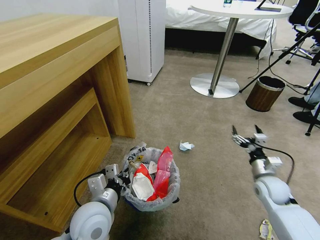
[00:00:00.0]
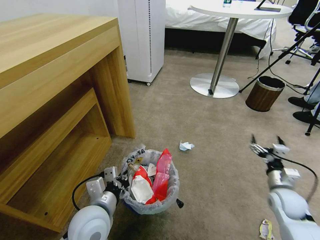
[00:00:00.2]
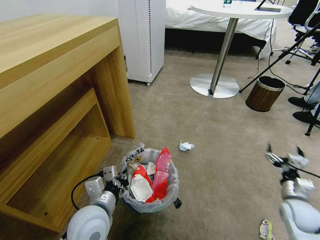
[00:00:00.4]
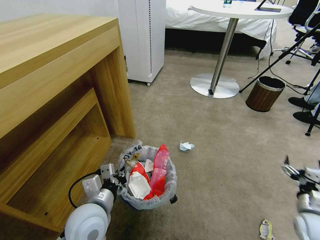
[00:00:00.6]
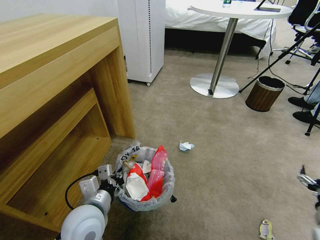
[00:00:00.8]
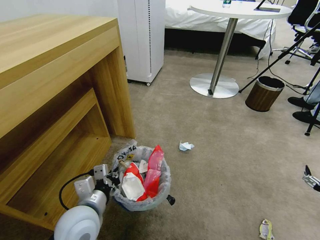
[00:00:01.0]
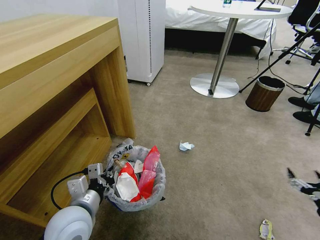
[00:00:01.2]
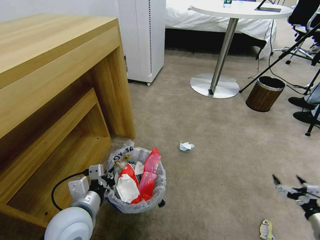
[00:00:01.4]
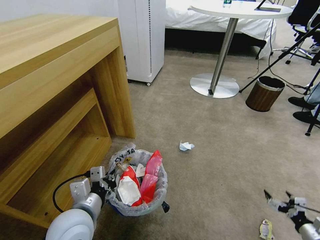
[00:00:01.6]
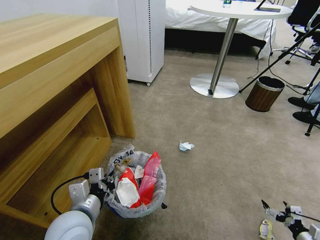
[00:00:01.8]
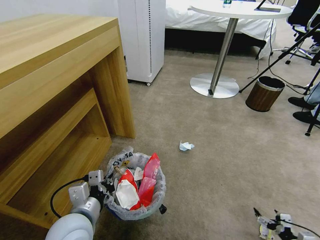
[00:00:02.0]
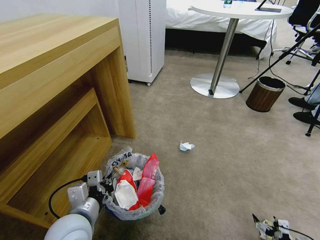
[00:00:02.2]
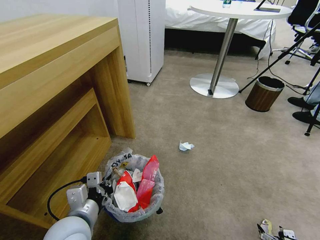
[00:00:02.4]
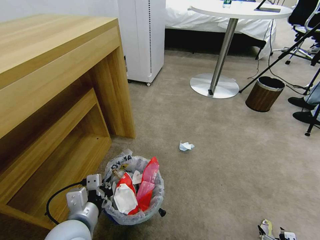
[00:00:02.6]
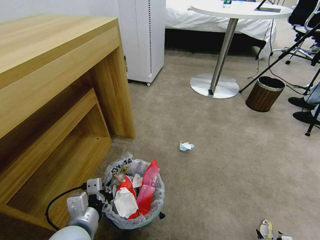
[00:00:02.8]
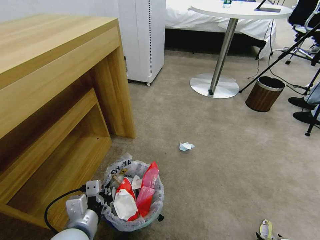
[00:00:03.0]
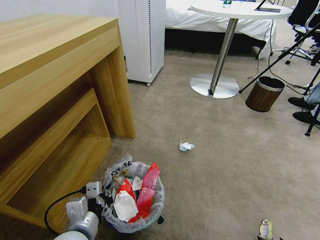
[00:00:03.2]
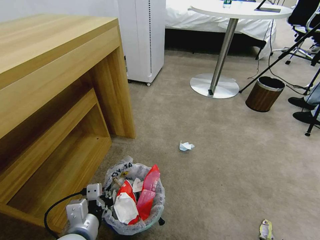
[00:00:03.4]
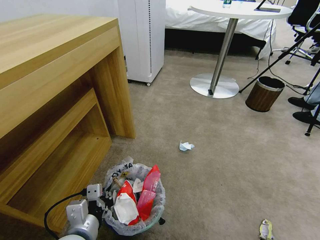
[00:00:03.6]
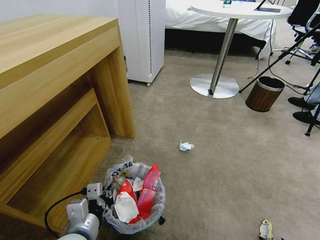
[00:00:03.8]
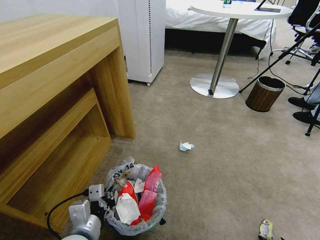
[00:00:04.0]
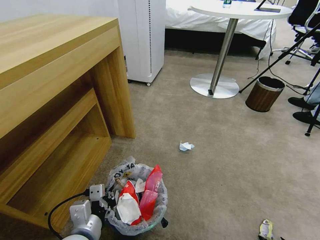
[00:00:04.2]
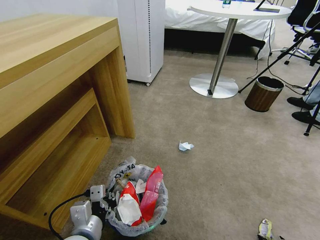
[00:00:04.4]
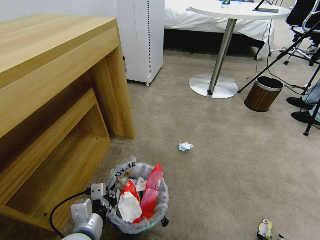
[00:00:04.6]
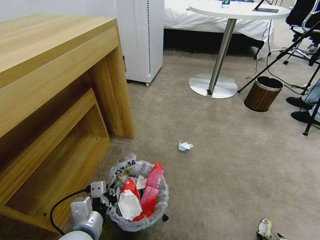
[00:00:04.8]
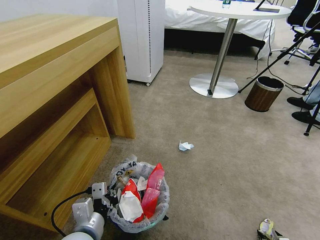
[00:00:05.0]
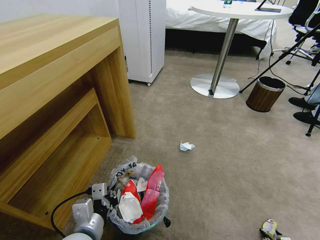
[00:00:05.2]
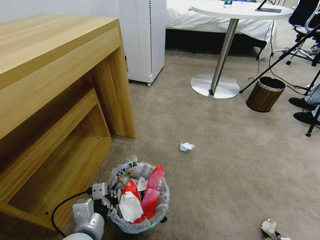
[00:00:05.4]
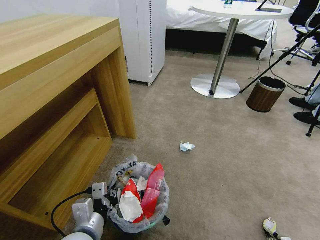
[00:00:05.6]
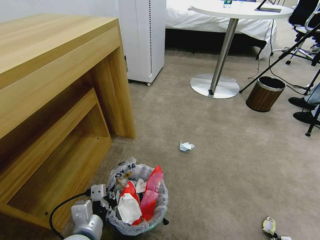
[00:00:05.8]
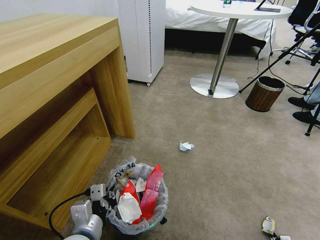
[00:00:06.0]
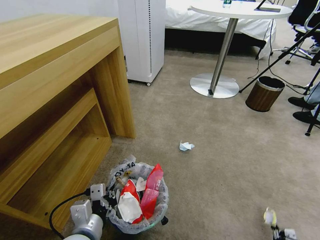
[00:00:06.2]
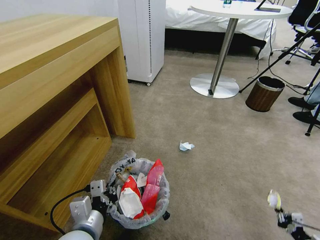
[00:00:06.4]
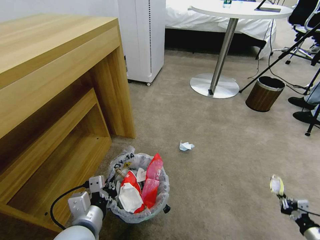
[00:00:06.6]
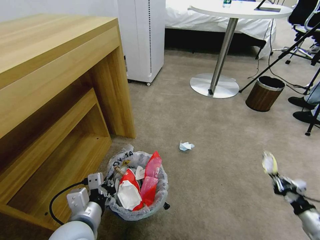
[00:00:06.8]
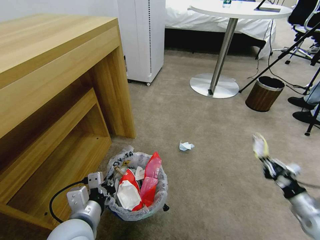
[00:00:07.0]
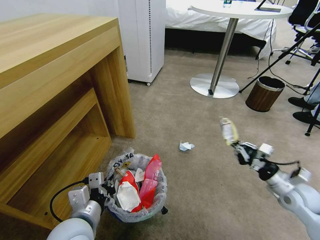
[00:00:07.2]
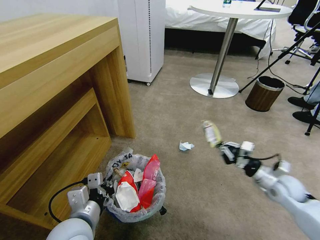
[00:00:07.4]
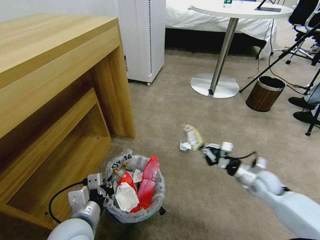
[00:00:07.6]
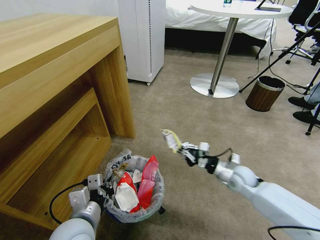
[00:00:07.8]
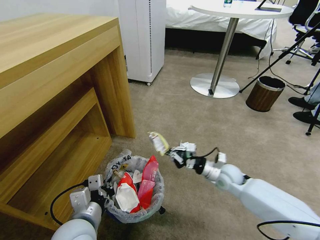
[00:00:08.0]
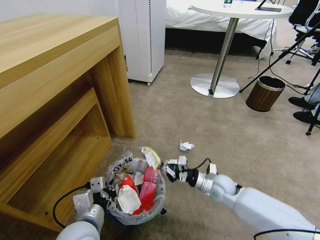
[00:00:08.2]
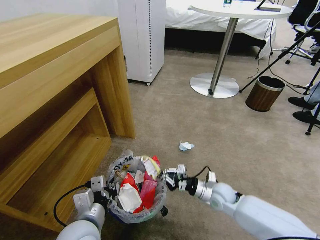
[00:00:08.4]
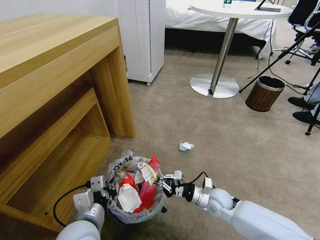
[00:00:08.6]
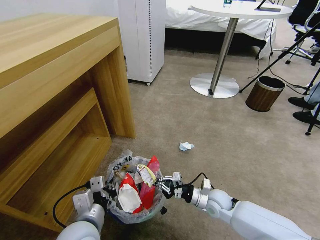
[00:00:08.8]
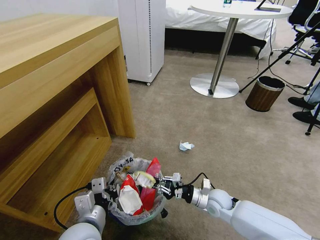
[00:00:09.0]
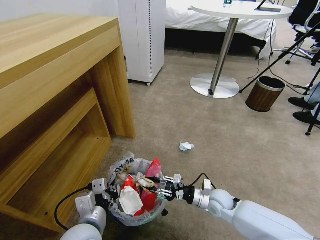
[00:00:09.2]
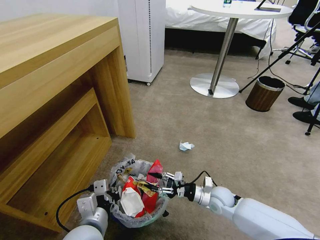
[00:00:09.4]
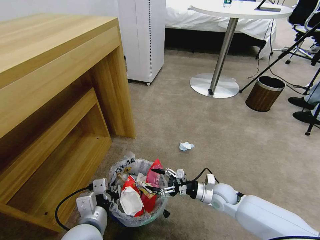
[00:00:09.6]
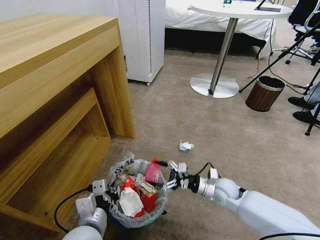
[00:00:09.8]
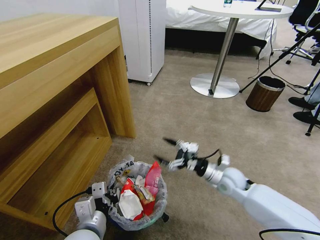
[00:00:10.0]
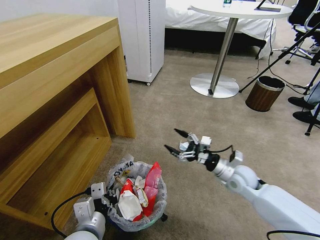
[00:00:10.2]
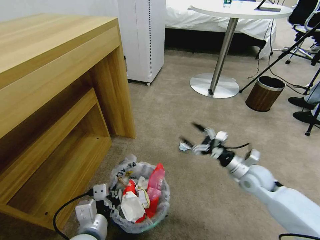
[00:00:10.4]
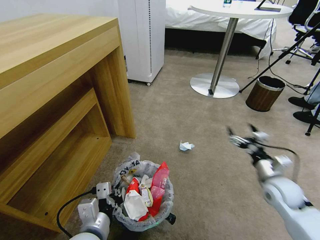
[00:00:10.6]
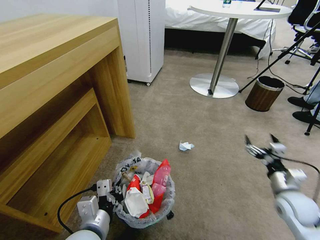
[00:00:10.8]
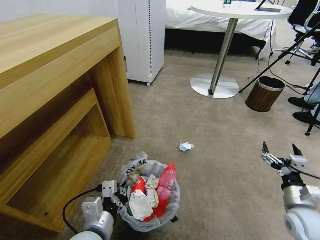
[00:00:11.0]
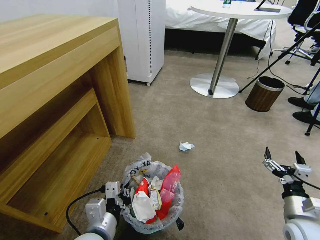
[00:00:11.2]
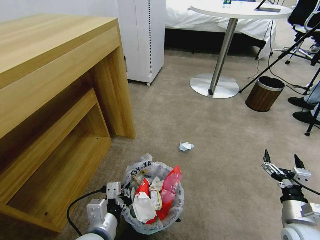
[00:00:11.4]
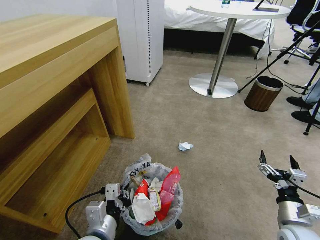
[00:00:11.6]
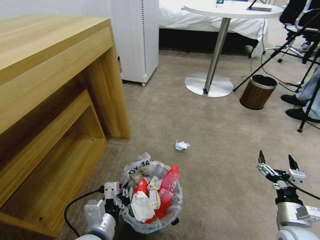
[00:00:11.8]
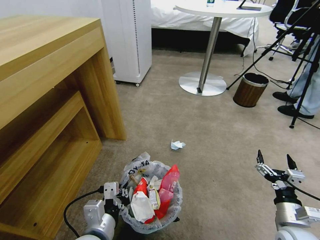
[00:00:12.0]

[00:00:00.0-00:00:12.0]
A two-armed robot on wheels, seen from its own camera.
Task of the whole recording: Pick up the trash bin and place the garbage on the floor into it.
00:00:00.0 to 00:00:01.6: The right gripper goes about 25 cm backward, to the right and downward.
00:00:01.6 to 00:00:03.0: The right gripper goes about 15 cm backward and downward.
00:00:03.0 to 00:00:04.4: The grippers stay close to where they were, moving slightly.
00:00:04.4 to 00:00:06.0: The right gripper closes its fingers.
00:00:06.0 to 00:00:07.6: The right gripper shifts approximately 40 cm forward, upward and to the left.
00:00:07.6 to 00:00:09.0: The right gripper travels to the left and downward by roughly 15 cm.
00:00:09.0 to 00:00:10.4: The right gripper travels upward and to the right by roughly 15 cm, and opens.
00:00:10.4 to 00:00:12.0: The right gripper heads backward, covering roughly 15 cm.

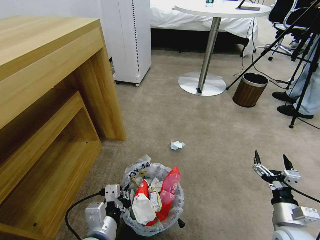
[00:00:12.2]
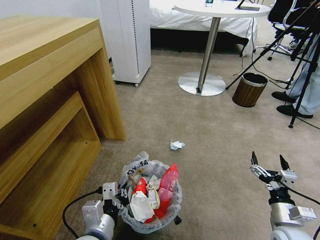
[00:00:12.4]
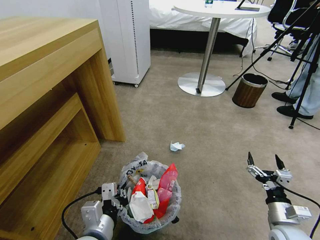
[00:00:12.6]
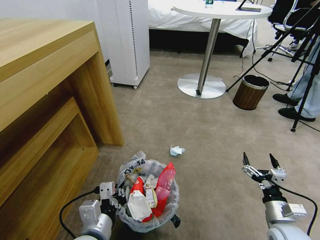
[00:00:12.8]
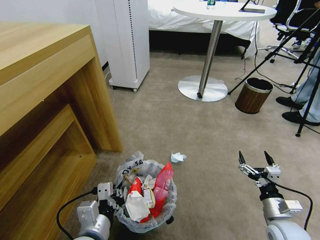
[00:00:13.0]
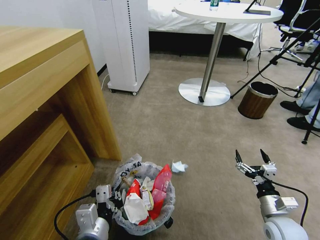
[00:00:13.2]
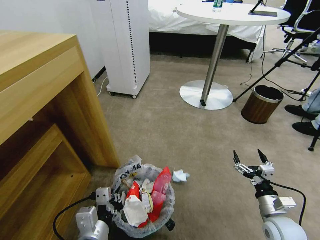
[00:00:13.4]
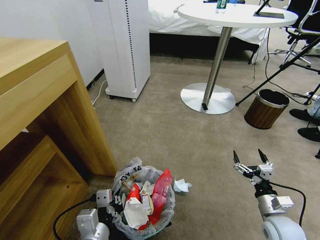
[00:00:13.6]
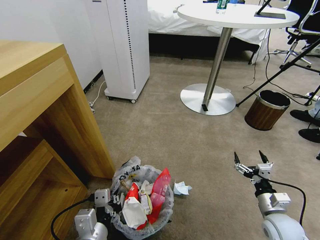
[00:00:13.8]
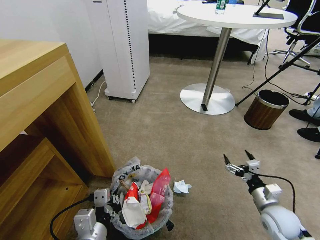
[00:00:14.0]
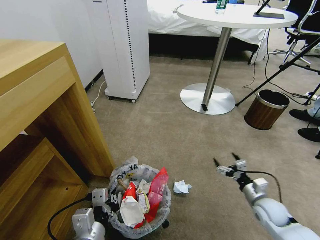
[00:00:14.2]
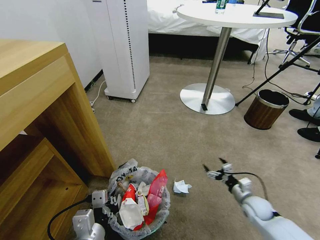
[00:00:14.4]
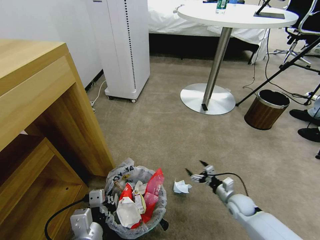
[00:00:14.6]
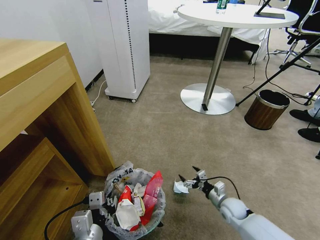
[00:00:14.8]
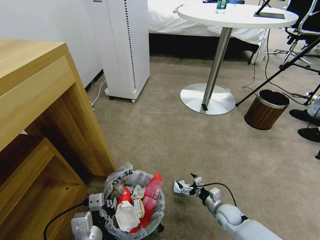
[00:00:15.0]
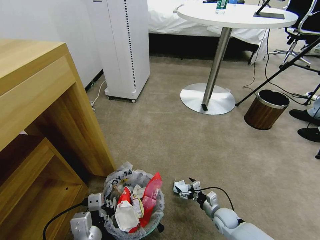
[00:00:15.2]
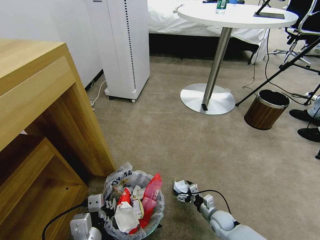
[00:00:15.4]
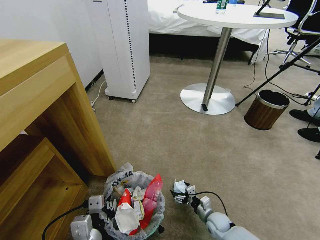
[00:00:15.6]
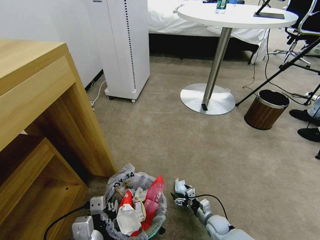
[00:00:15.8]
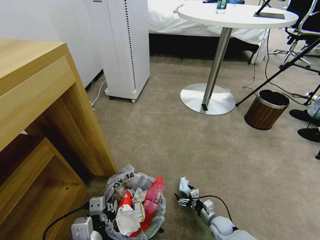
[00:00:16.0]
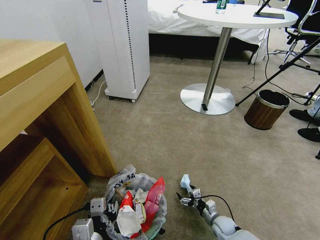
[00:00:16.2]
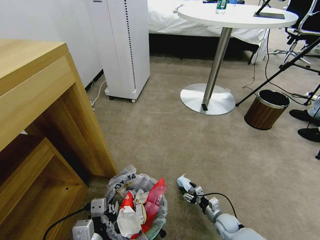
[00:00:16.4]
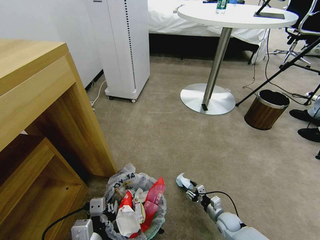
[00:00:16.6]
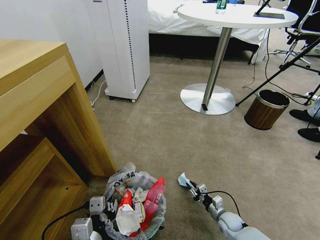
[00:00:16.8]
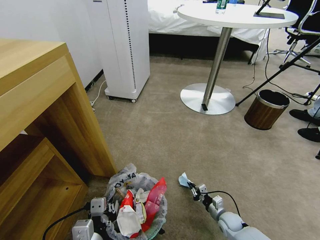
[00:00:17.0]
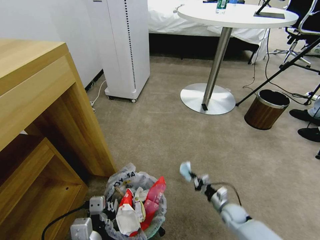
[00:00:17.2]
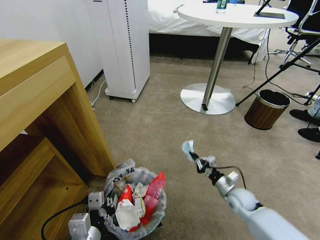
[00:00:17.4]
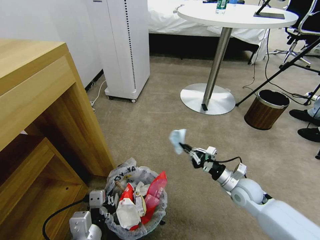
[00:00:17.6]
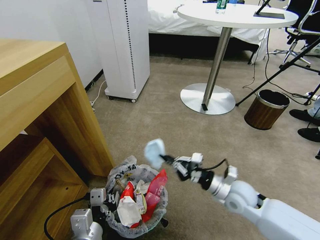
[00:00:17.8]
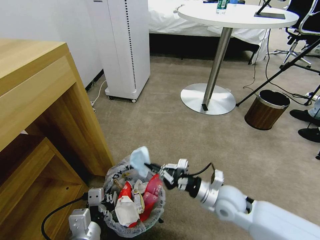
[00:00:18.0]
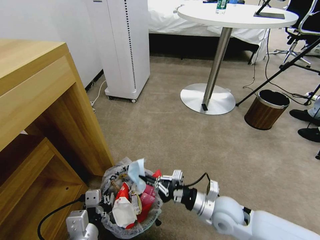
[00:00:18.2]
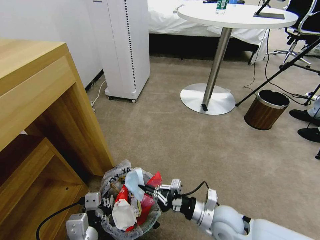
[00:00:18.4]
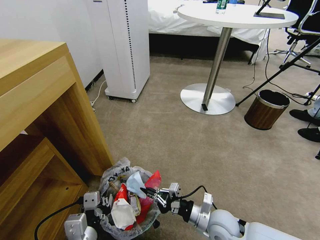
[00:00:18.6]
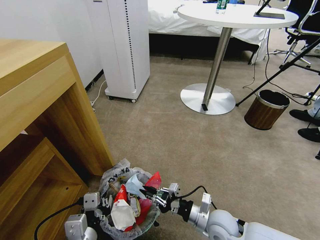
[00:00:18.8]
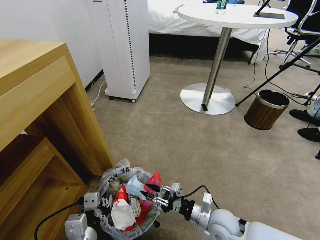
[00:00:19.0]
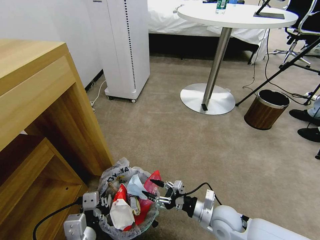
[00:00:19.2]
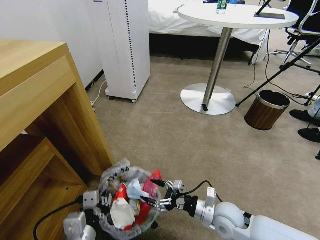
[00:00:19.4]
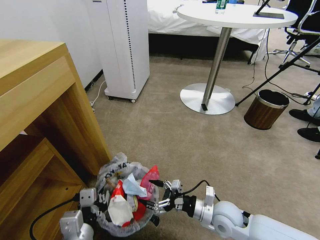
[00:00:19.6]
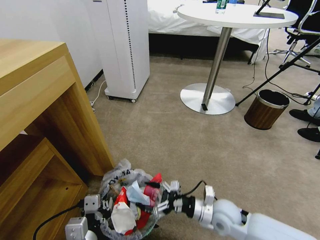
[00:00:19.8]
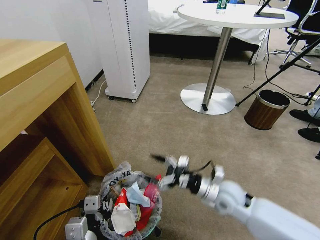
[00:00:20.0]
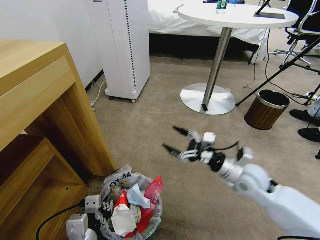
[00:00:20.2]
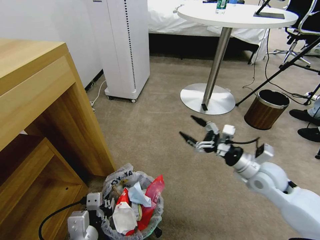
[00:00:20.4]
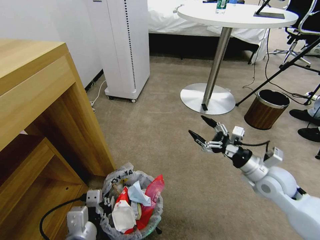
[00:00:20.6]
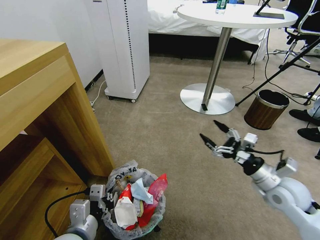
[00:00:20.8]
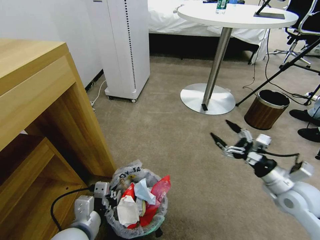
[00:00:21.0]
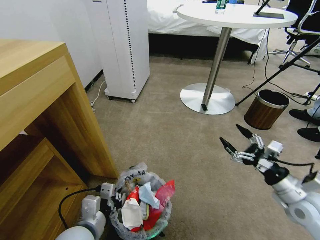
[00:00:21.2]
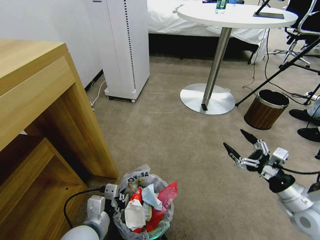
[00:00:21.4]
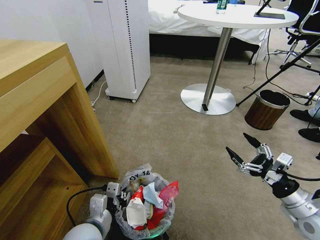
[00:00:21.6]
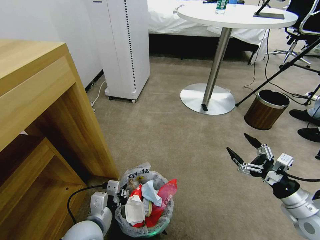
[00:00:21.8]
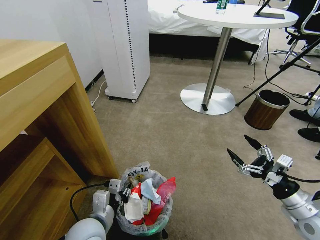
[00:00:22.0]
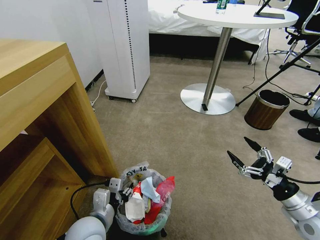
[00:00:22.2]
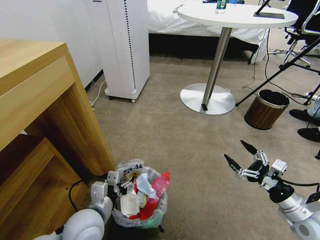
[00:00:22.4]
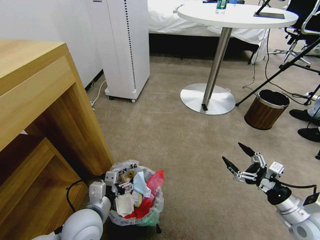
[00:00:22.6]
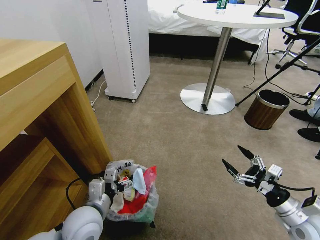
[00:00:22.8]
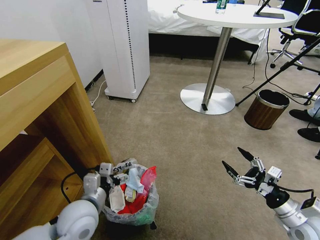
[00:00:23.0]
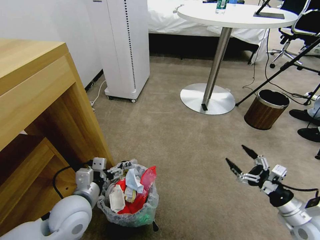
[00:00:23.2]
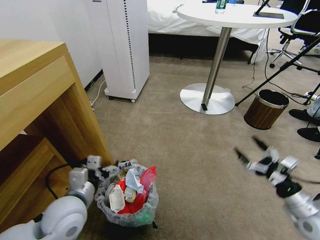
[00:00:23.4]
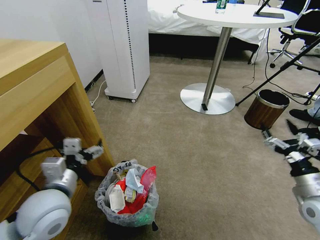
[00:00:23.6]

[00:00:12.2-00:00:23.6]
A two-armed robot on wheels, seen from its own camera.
Task of the whole recording: Pick up the trash bin and place the garbage on the floor into it.
00:00:13.6 to 00:00:15.0: The right gripper travels downward, to the left and forward by approximately 20 cm.
00:00:15.0 to 00:00:16.4: The right gripper moves downward, about 5 cm.
00:00:16.4 to 00:00:17.8: The right gripper goes roughly 25 cm upward, and closes.
00:00:17.8 to 00:00:19.4: The right gripper heads downward and backward, covering roughly 5 cm, and opens up.
00:00:19.4 to 00:00:20.8: The right gripper shifts approximately 20 cm to the right and upward.
00:00:20.8 to 00:00:22.2: The left gripper travels forward by some 5 cm, and opens its fingers; the right gripper heads backward and to the right, covering approximately 10 cm.
00:00:22.2 to 00:00:23.6: The left gripper moves upward and to the left, about 10 cm, and opens its fingers.
